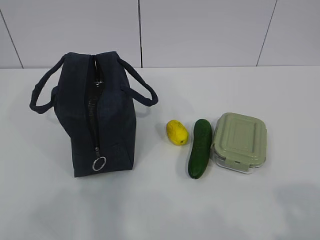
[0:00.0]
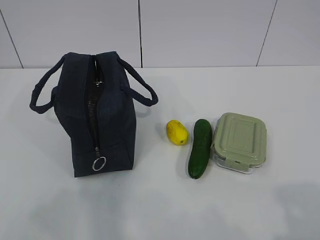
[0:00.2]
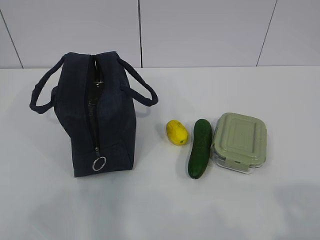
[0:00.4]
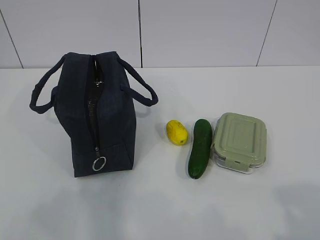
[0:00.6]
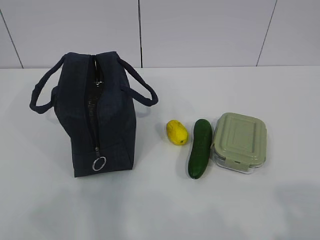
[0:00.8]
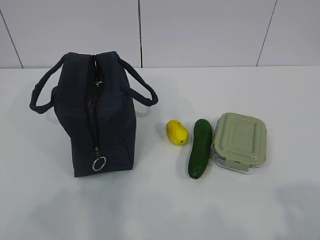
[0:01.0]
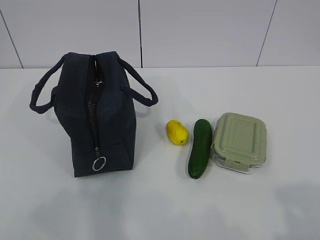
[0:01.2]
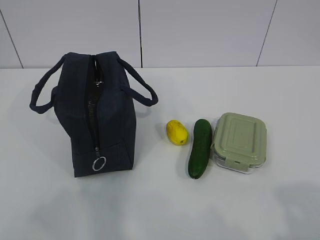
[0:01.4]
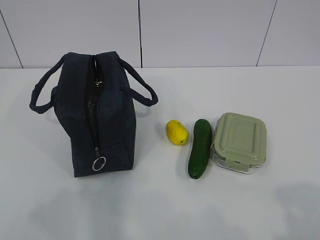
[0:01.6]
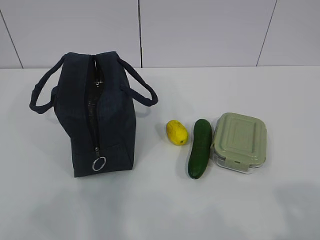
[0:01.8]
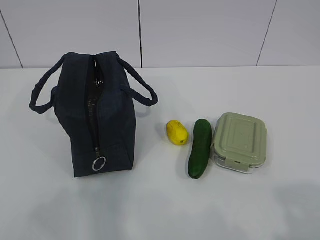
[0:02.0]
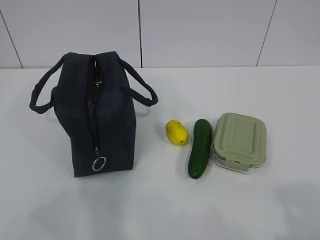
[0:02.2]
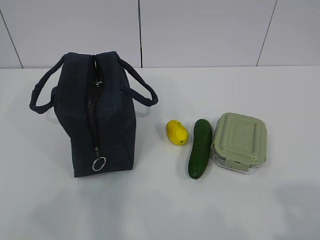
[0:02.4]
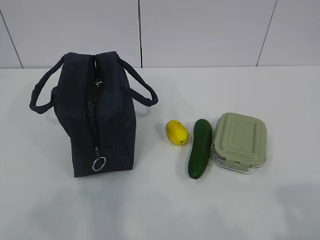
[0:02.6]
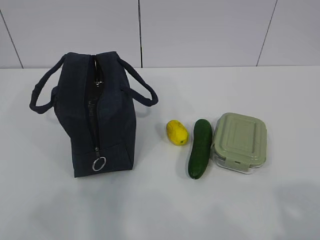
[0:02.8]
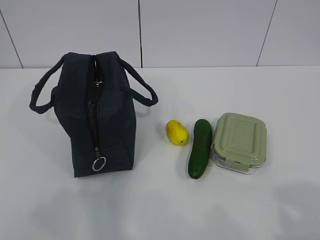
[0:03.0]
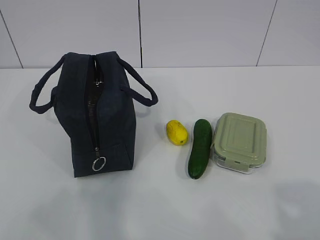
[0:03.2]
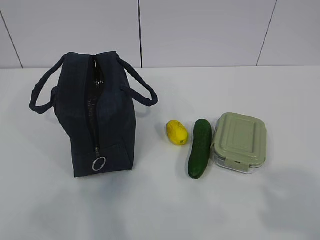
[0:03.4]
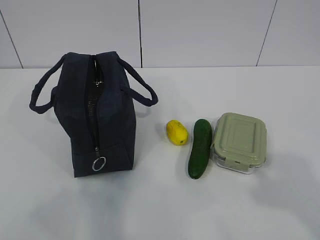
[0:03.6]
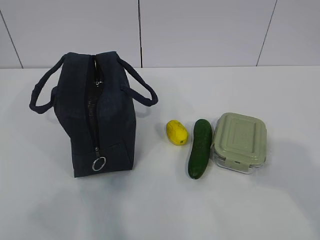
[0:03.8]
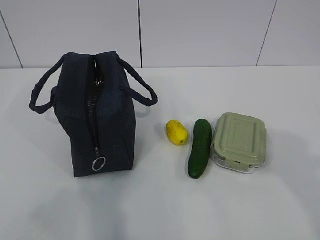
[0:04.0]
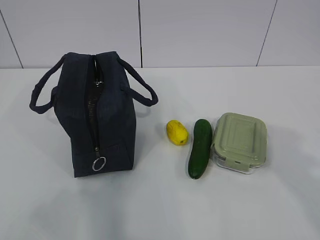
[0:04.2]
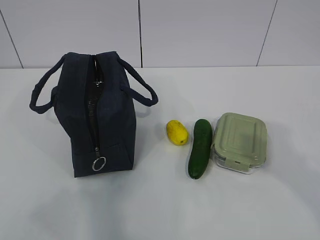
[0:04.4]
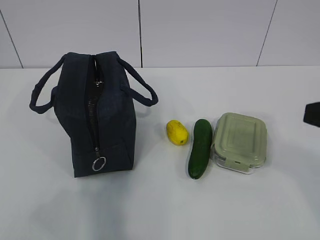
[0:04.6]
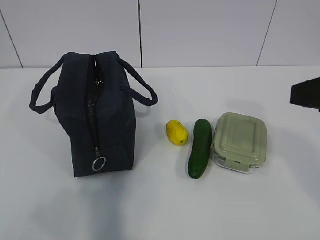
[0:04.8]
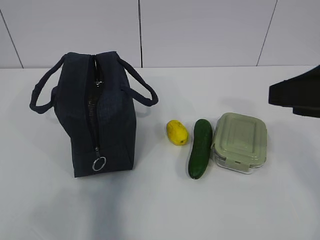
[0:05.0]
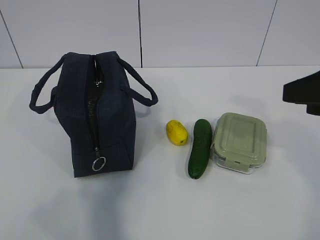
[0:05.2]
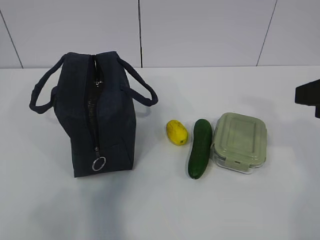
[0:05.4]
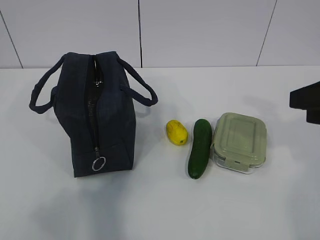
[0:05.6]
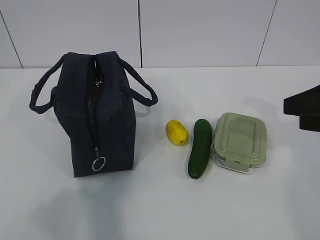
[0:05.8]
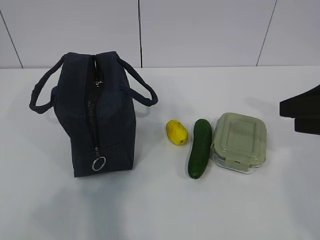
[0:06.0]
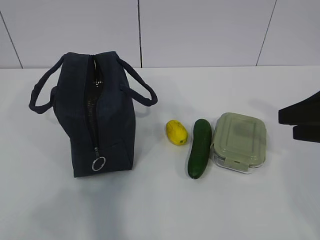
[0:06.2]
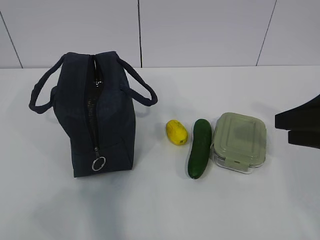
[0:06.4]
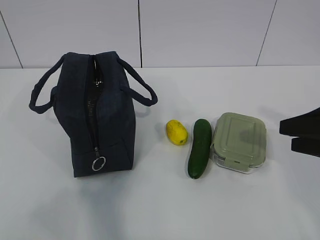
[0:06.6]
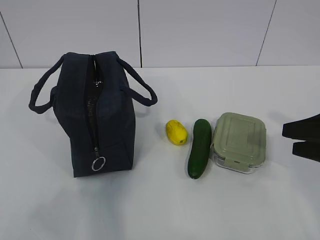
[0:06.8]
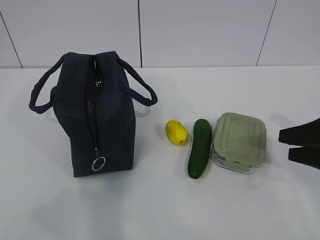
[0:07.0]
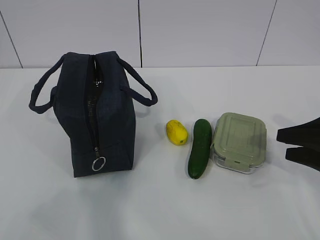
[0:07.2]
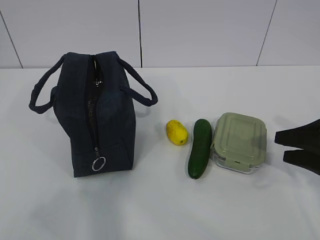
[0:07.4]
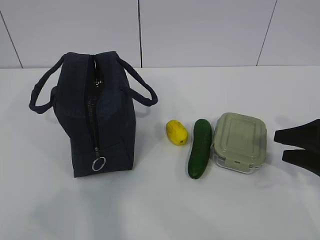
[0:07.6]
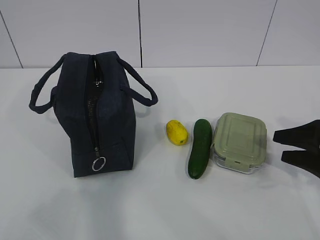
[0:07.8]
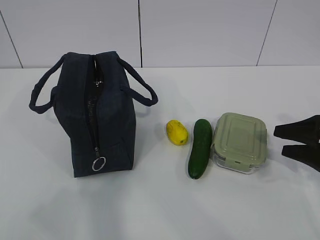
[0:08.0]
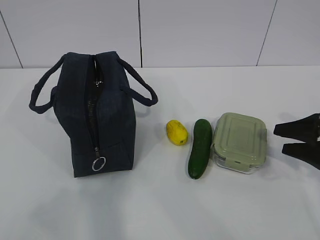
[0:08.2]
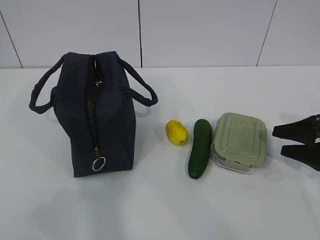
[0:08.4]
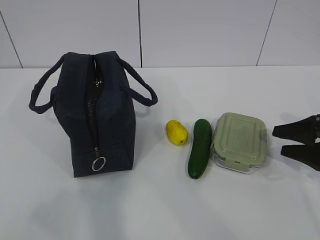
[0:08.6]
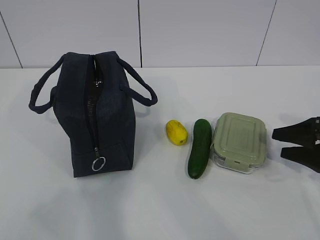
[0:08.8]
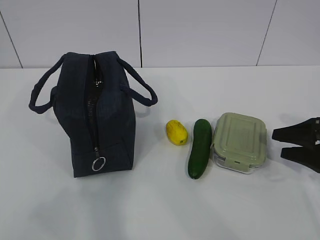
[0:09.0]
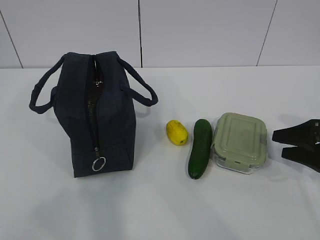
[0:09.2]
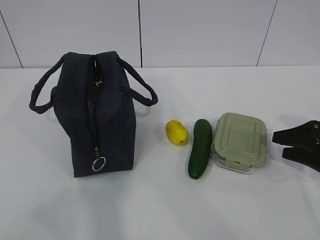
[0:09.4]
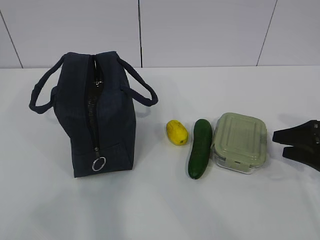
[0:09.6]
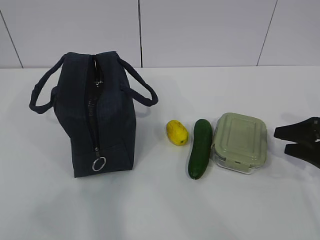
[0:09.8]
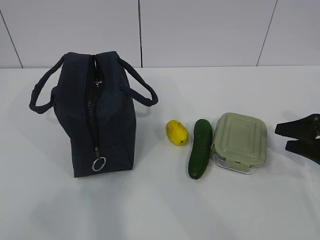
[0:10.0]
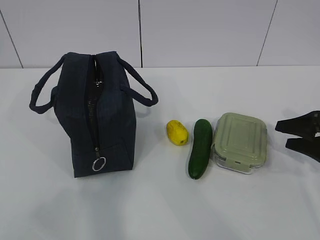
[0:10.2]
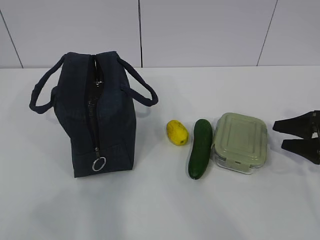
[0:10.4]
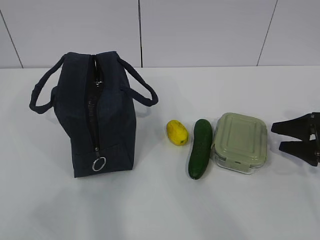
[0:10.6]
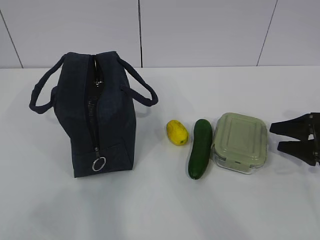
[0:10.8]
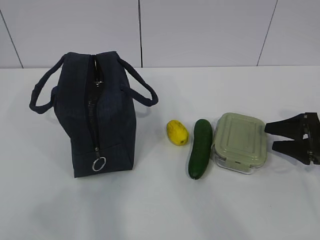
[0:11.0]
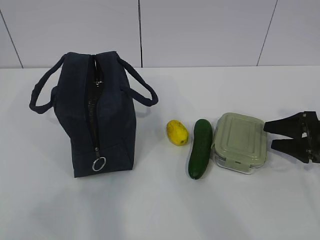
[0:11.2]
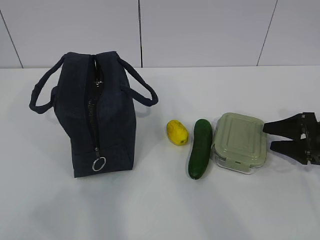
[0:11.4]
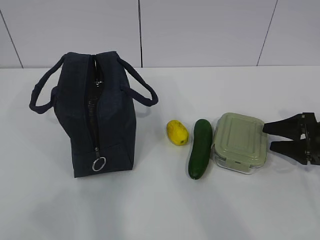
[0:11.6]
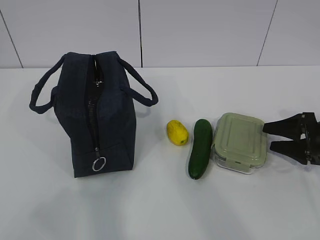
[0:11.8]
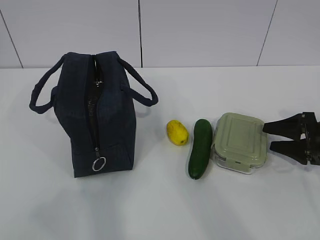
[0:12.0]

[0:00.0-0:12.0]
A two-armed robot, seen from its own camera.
0:01.6 to 0:03.0: Both grippers stay about where they are.
0:04.4 to 0:06.0: The right gripper goes roughly 10 cm forward.
0:06.0 to 0:07.6: The right gripper goes approximately 10 cm downward.
0:09.0 to 0:12.0: The grippers stay close to where they were, moving slightly.

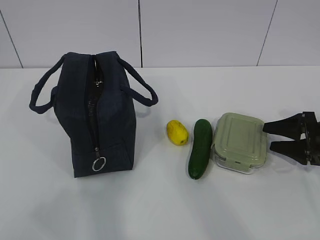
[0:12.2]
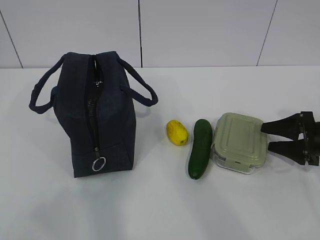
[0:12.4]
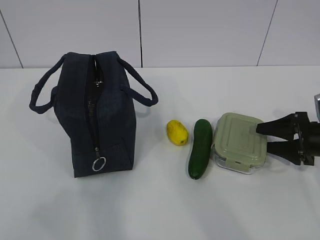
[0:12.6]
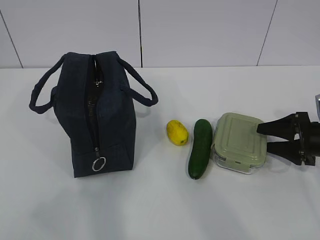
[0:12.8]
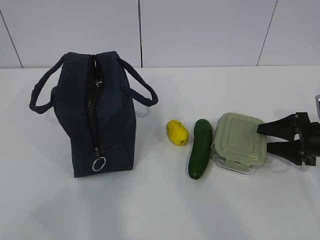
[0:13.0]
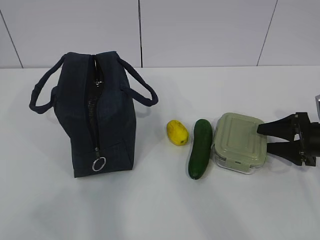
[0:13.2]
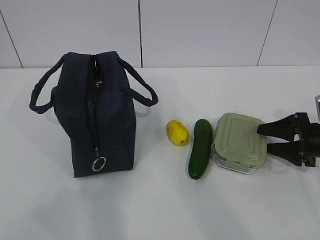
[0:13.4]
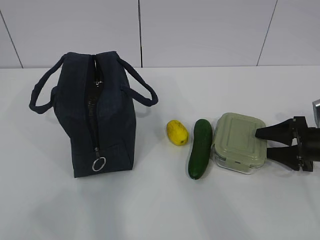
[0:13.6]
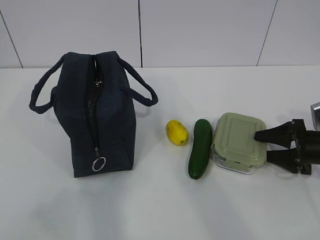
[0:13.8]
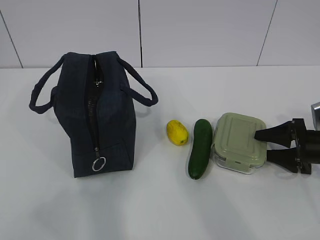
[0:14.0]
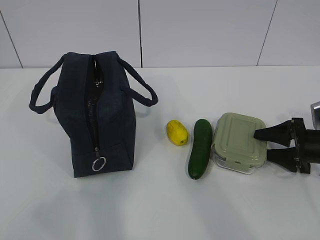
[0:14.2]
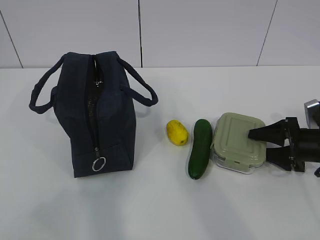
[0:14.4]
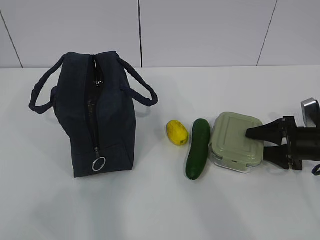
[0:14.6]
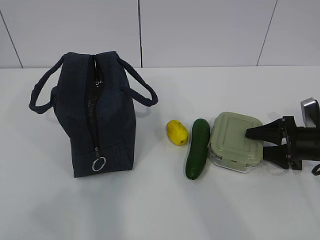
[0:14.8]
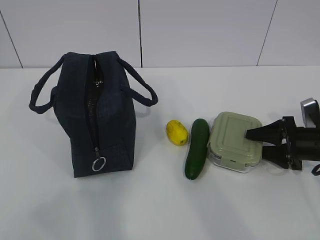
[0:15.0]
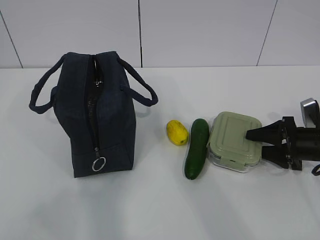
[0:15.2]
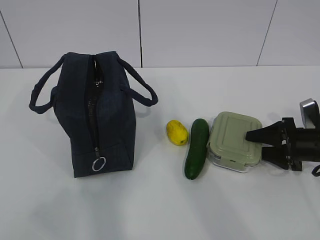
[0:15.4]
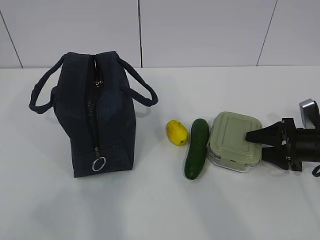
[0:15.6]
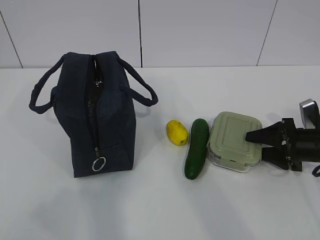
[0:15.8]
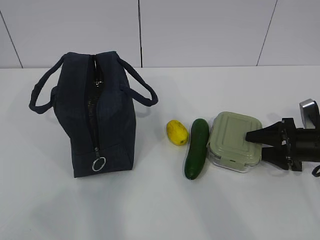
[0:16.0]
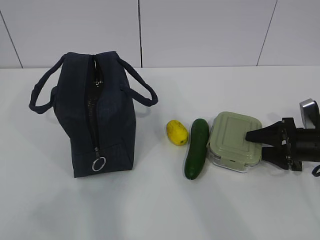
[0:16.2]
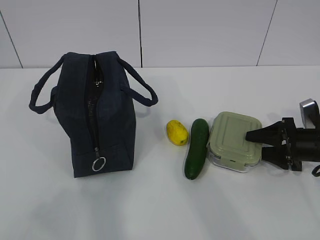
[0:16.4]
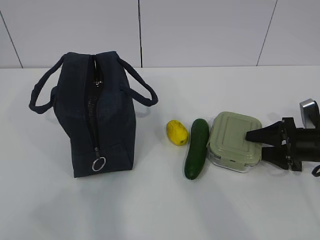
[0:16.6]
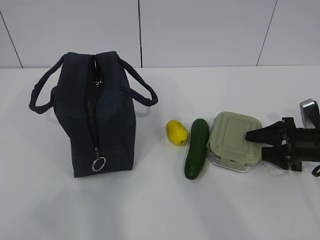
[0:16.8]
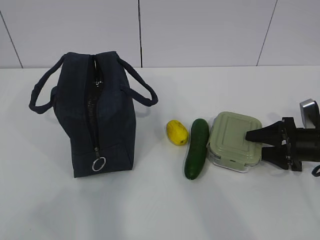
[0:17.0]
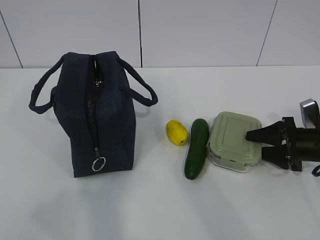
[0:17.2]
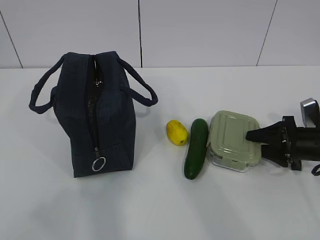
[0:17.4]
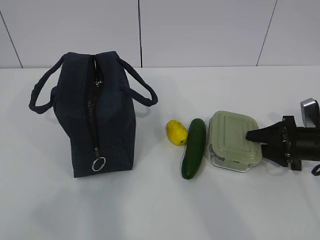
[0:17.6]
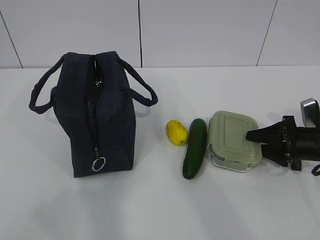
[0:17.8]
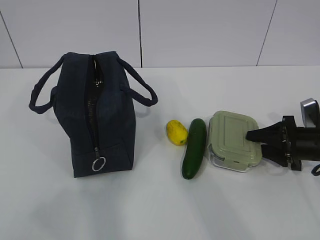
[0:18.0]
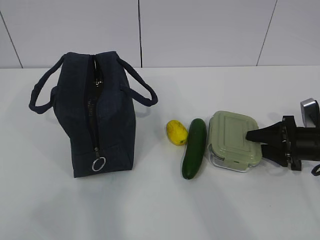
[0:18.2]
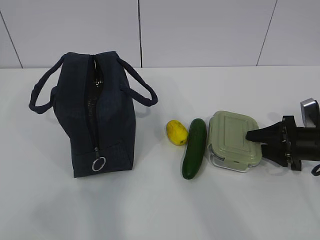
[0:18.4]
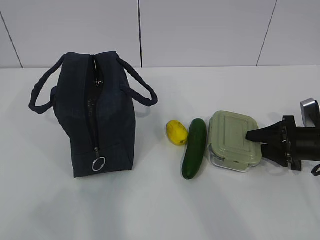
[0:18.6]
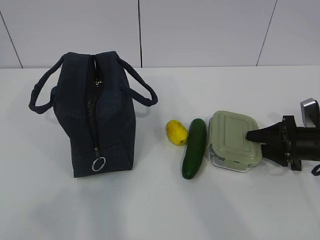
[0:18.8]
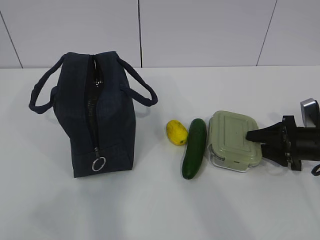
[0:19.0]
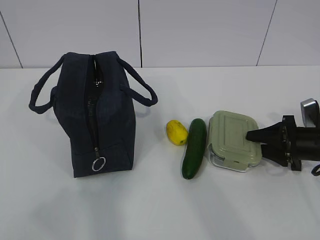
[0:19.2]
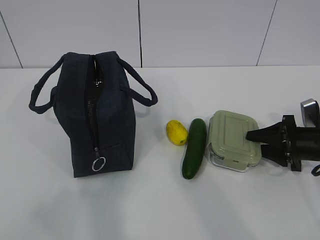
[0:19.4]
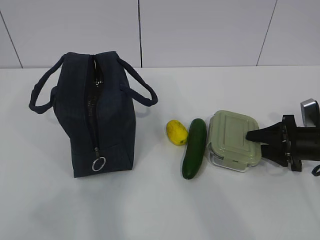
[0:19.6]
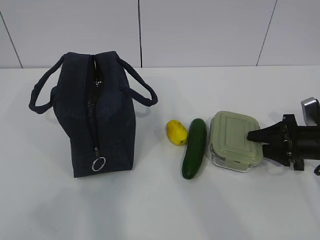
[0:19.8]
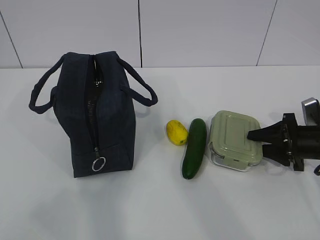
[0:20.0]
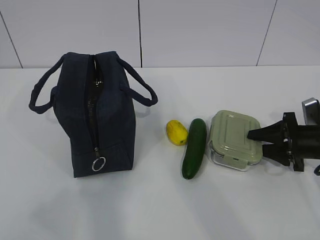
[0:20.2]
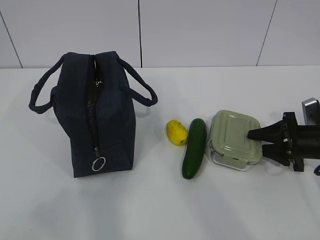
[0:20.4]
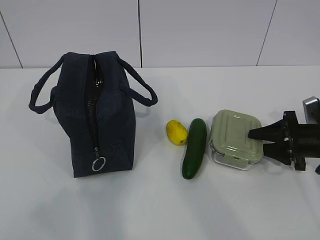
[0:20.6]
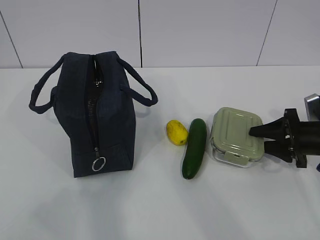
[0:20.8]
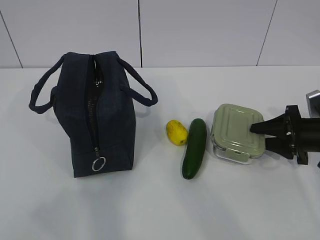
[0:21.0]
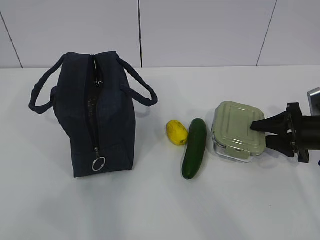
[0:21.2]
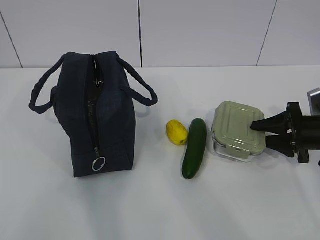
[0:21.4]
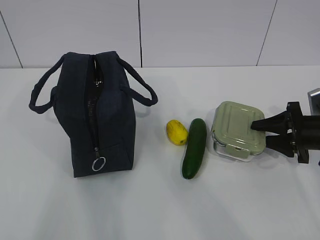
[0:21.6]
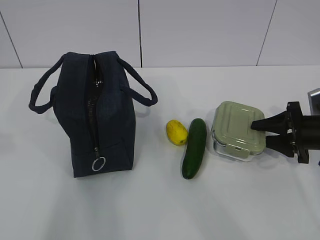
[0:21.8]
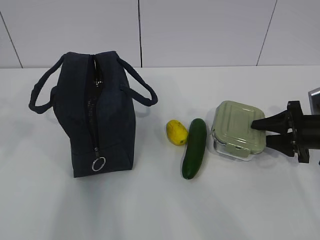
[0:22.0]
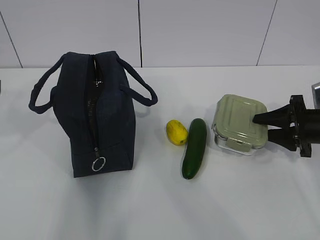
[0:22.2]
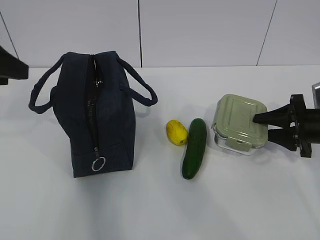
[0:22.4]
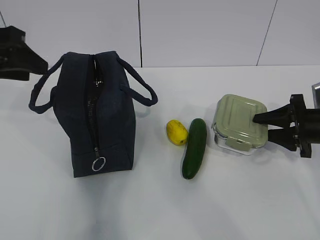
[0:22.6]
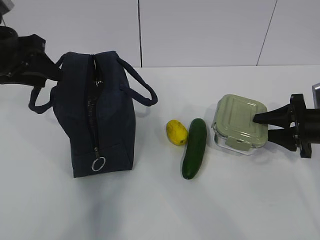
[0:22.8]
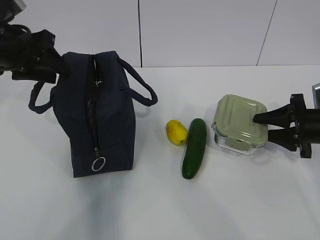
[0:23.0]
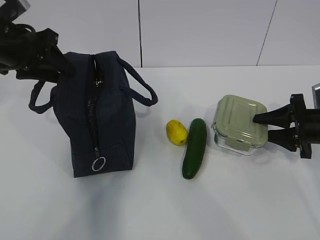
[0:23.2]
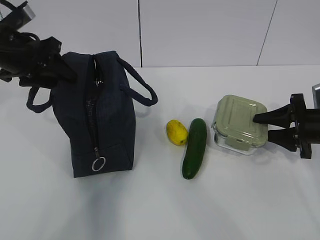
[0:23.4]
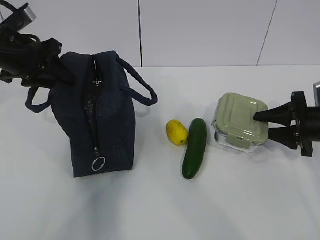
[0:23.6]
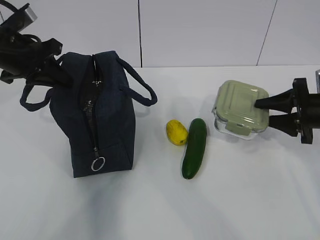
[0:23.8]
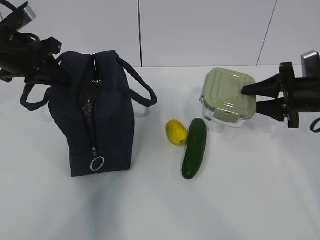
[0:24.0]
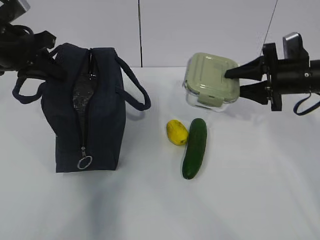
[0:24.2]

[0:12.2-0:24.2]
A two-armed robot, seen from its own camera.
Step, 0:12.2 to 0:16.8: Grab the lunch box with your right hand.
Step, 0:17.2 to 0:21.4: Grab the lunch bag with your left hand.
0:12.2 to 0:15.2: There are only small adjustments of the grippers.
0:15.2 to 0:19.8: Both grippers stay about where they are.
0:19.8 to 0:21.2: The grippers make only small movements.
0:21.2 to 0:22.6: The left gripper shifts about 30 cm forward.
0:22.6 to 0:24.2: The right gripper moves upward, to the left and forward, about 10 cm; the left gripper goes approximately 5 cm forward, and closes.
